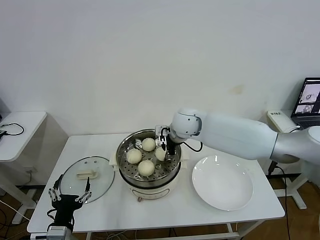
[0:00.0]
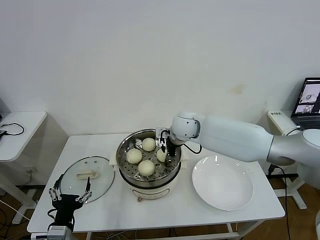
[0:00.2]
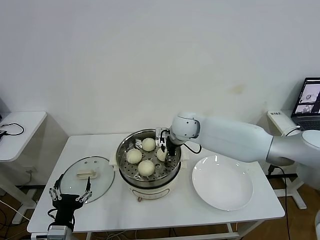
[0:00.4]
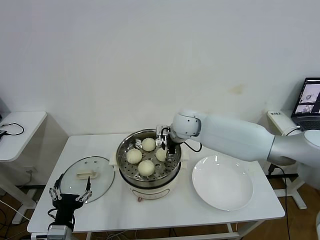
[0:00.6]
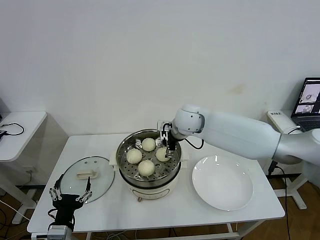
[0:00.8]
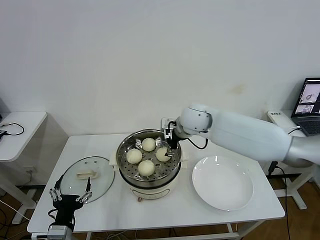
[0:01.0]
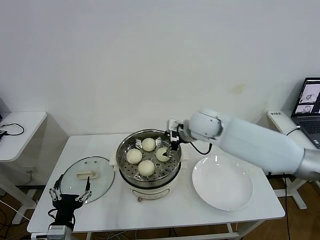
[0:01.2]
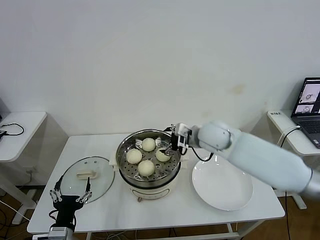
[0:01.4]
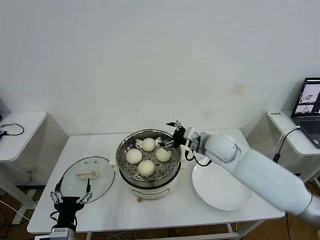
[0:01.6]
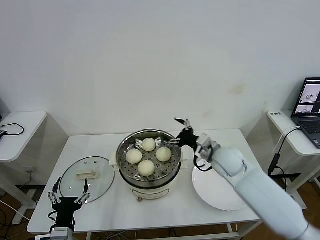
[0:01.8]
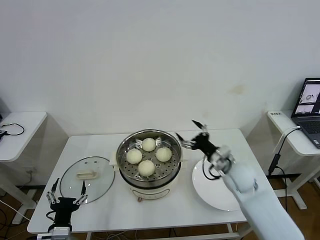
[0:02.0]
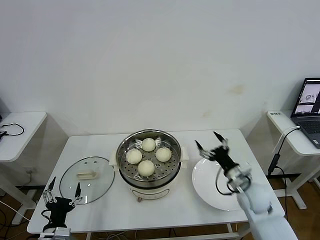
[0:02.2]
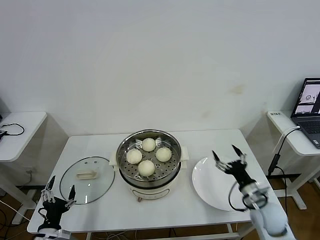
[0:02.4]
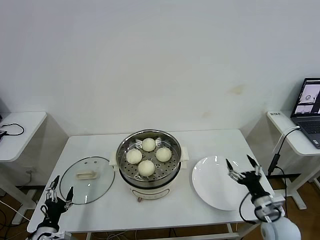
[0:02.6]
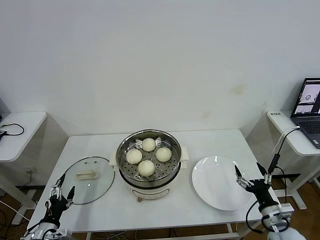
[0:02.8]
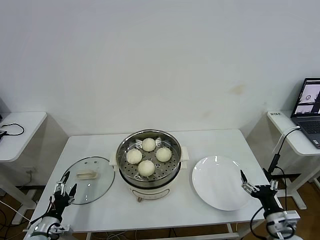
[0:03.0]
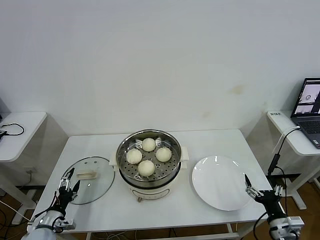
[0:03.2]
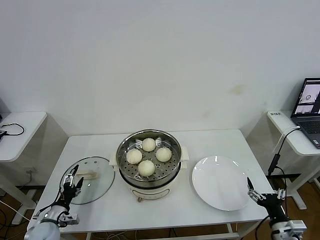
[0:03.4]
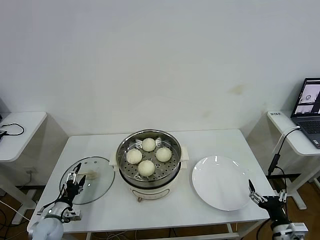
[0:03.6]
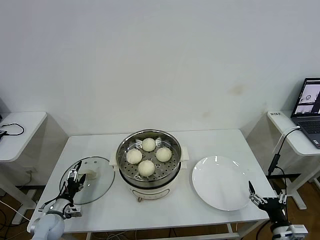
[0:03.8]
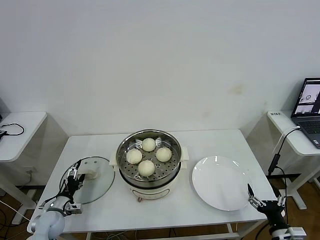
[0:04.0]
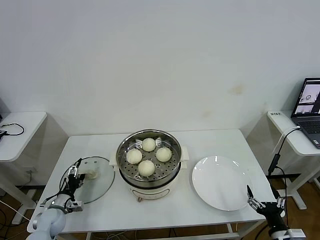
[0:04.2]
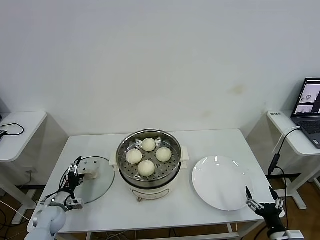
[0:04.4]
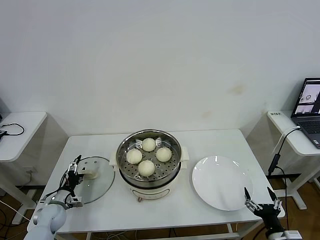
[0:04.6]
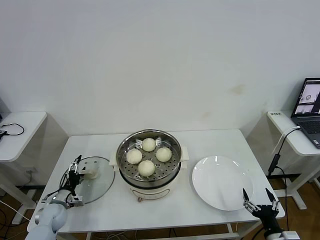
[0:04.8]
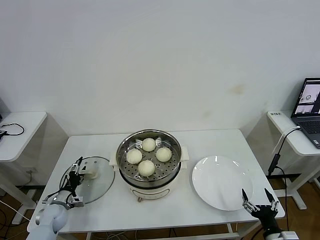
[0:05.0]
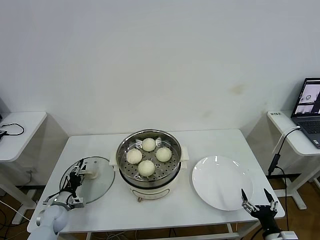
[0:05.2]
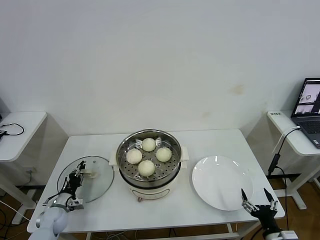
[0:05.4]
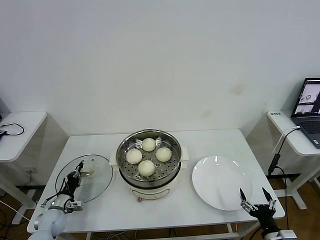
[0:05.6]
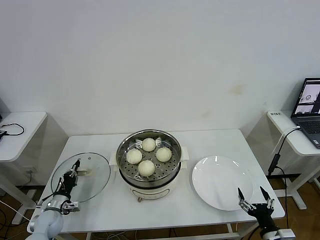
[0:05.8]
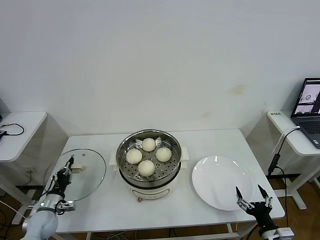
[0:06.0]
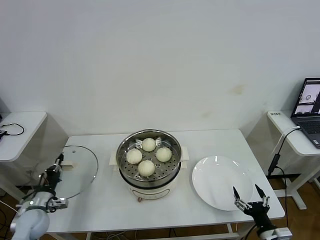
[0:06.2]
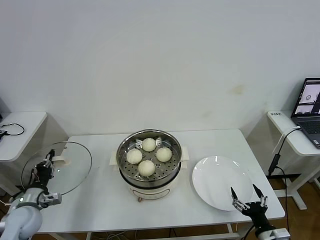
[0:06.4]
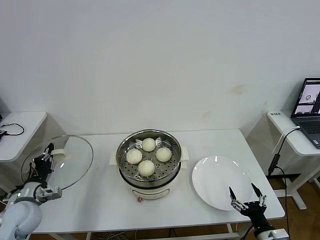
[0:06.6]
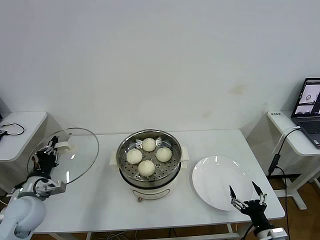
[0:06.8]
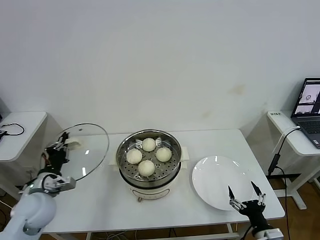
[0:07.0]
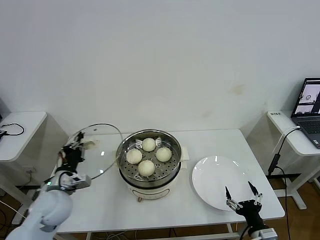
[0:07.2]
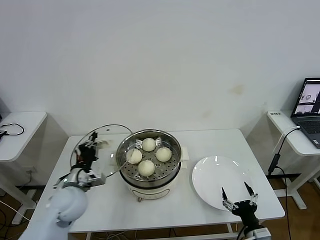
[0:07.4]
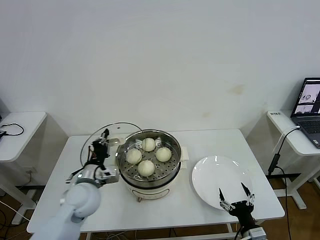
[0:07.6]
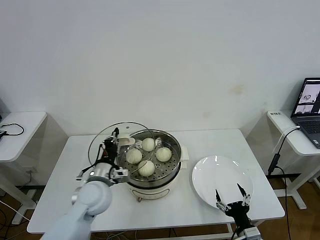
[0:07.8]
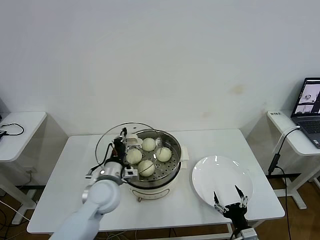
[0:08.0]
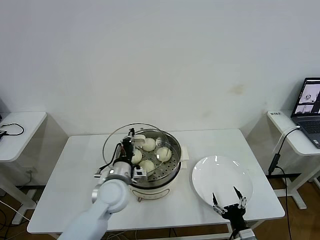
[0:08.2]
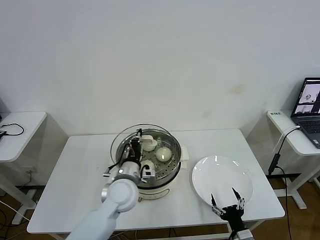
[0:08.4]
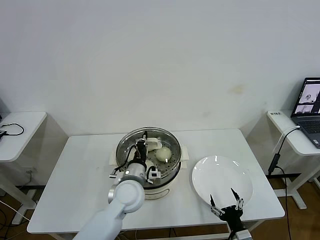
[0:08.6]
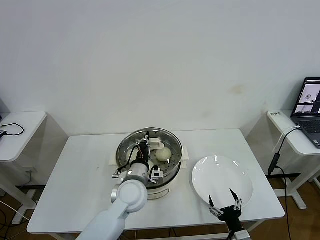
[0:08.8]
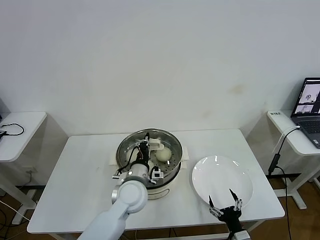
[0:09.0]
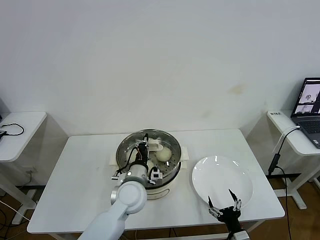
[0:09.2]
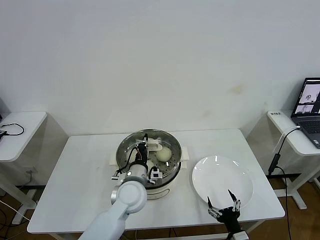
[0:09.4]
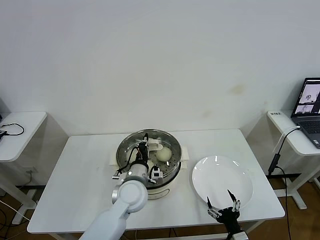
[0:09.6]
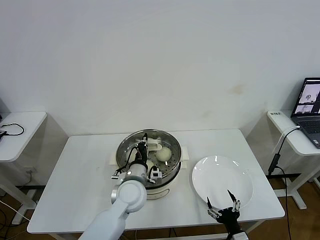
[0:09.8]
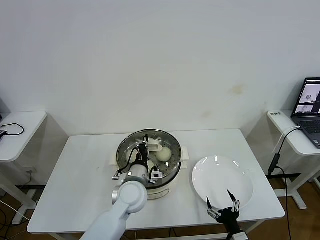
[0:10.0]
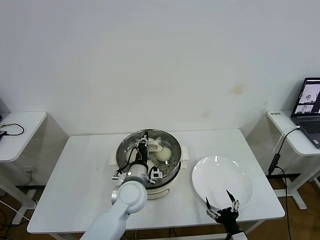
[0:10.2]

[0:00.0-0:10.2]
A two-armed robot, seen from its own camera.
Task of the whole recording: take steamed baozi put them in steamer then cover it.
Step, 0:00.8 to 0:05.6: Grasp the pot lid with left gripper.
0:00.0 to 0:01.4: The right gripper travels to the right and backward by some 10 cm, and opens.
0:01.4 to 0:03.0: The right gripper is displaced backward, to the right and downward by approximately 40 cm. Meanwhile the left gripper travels to the left, downward and forward by about 15 cm.
0:03.0 to 0:04.4: The left gripper shifts some 10 cm forward; the right gripper heads backward, covering approximately 5 cm.
0:04.4 to 0:05.8: The left gripper closes.
0:05.8 to 0:07.2: The left gripper moves upward and to the right, some 25 cm.
0:07.2 to 0:08.8: The right gripper moves approximately 5 cm. Meanwhile the left gripper moves to the right, approximately 25 cm.
0:08.8 to 0:10.2: Both grippers stay put.

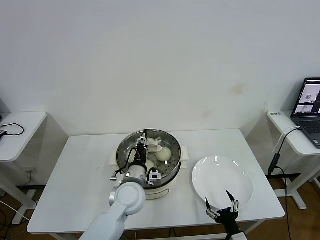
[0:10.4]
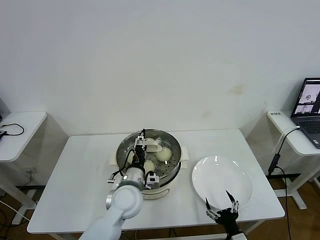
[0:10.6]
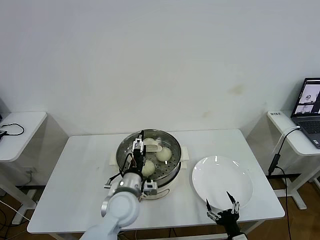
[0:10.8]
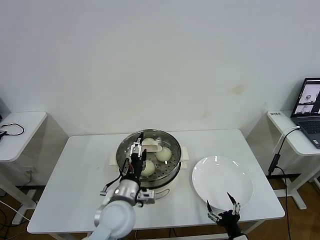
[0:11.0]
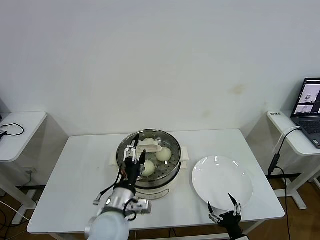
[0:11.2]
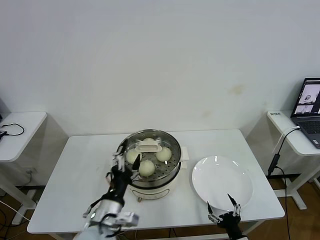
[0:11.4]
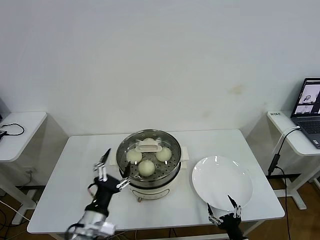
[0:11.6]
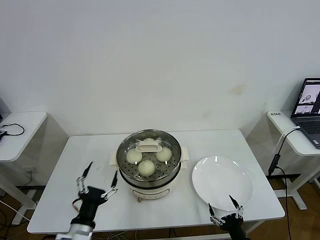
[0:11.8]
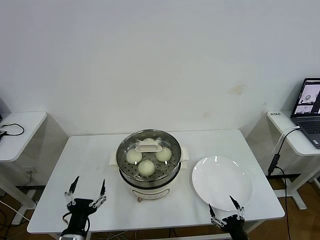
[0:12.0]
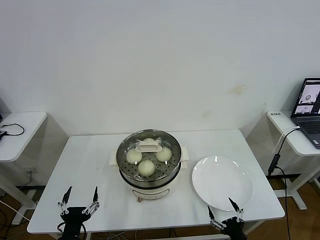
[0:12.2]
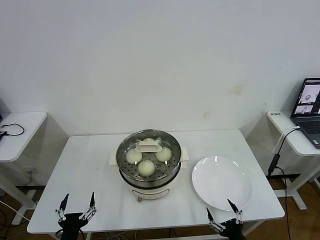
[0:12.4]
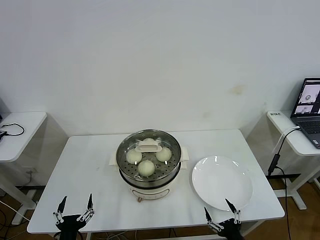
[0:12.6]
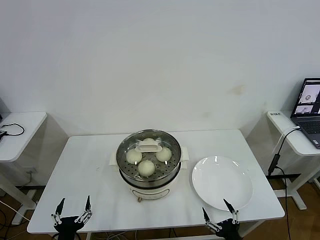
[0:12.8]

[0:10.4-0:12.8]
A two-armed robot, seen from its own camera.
Task of the whole recording: take steamed baozi put them in steamer then cover it.
0:10.4 to 0:11.6: The left gripper heads backward and to the left, covering some 15 cm, and opens up.
0:11.6 to 0:12.8: The left gripper heads downward, to the left and backward, covering some 15 cm.
